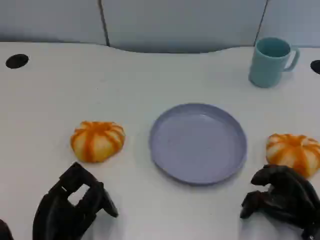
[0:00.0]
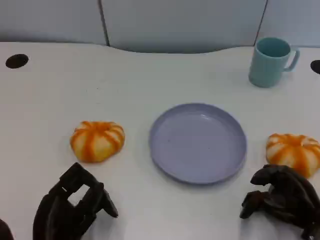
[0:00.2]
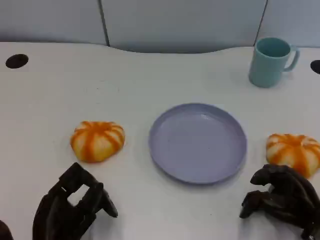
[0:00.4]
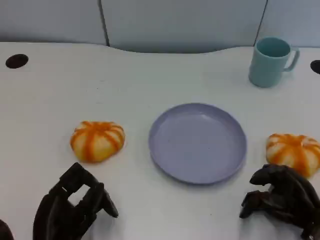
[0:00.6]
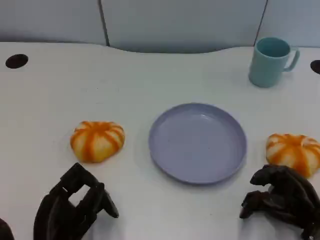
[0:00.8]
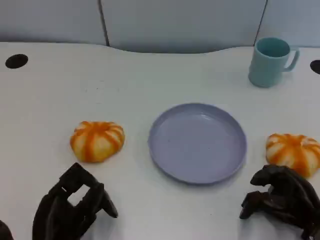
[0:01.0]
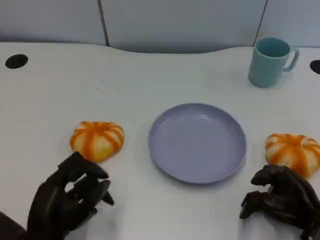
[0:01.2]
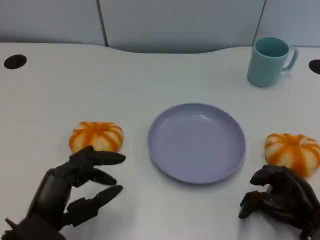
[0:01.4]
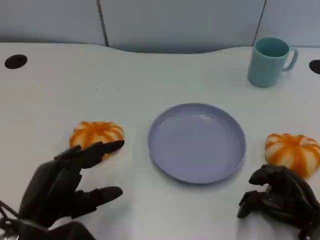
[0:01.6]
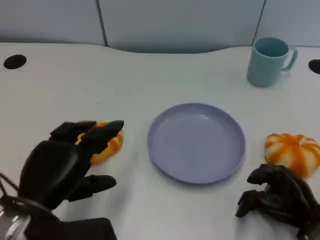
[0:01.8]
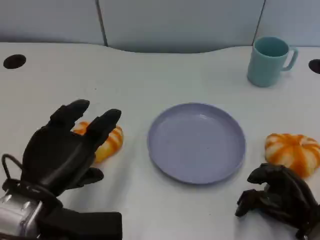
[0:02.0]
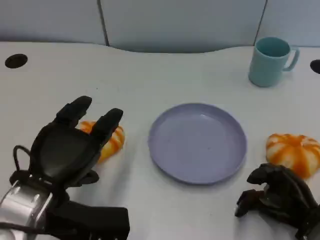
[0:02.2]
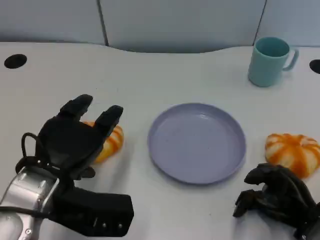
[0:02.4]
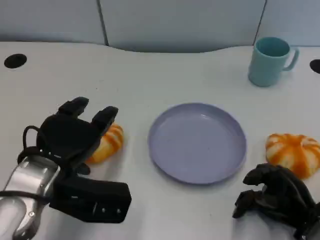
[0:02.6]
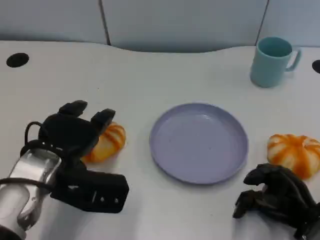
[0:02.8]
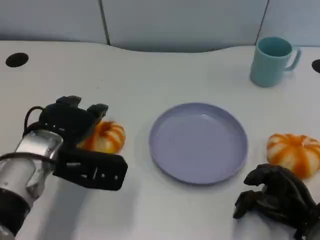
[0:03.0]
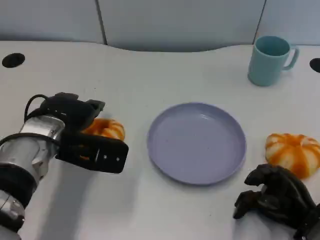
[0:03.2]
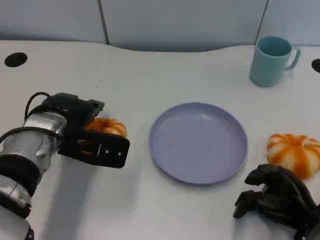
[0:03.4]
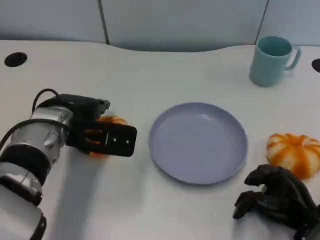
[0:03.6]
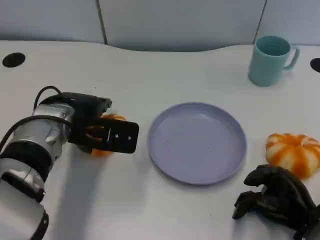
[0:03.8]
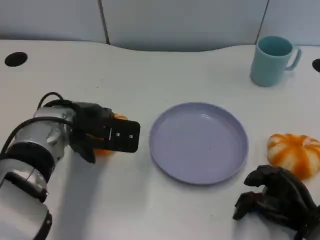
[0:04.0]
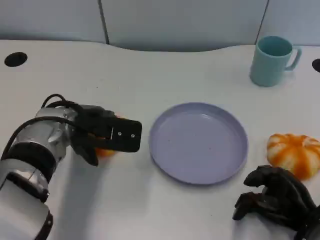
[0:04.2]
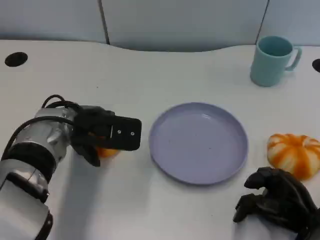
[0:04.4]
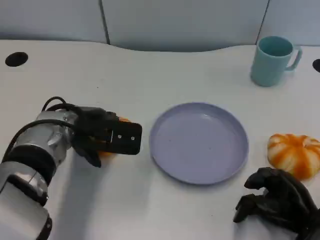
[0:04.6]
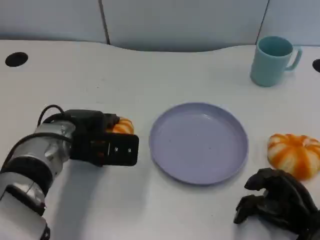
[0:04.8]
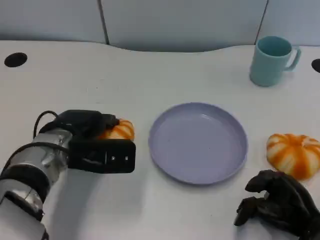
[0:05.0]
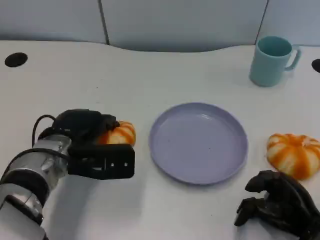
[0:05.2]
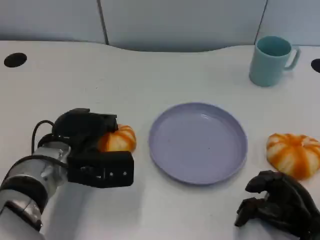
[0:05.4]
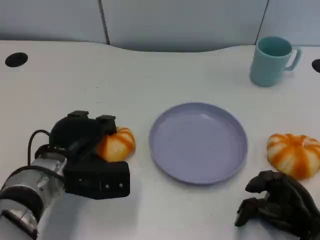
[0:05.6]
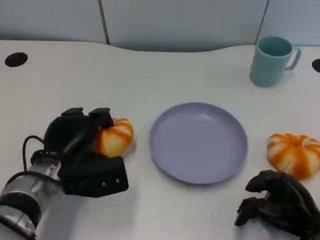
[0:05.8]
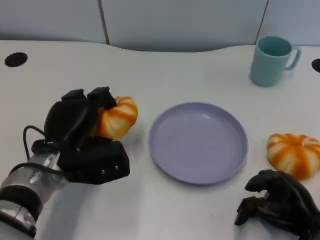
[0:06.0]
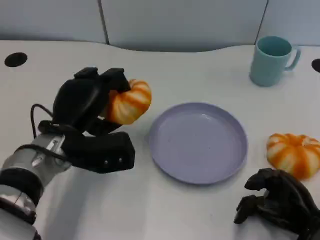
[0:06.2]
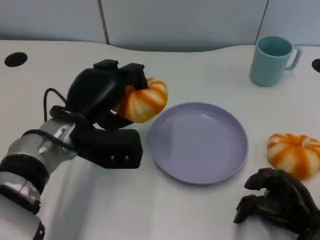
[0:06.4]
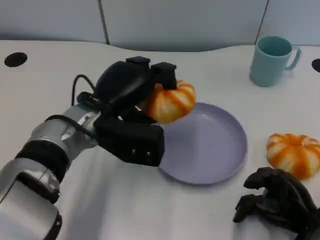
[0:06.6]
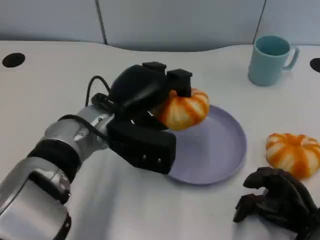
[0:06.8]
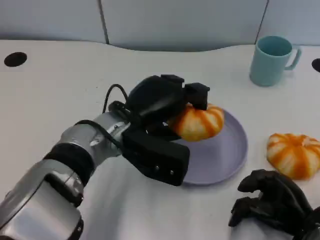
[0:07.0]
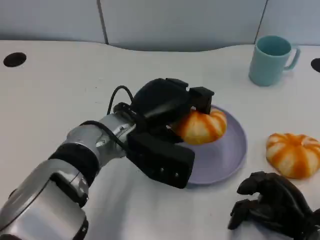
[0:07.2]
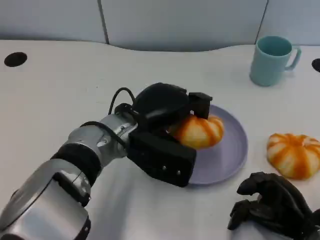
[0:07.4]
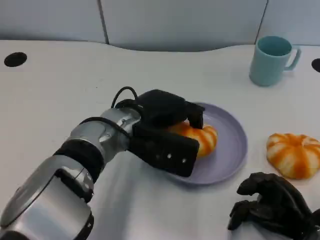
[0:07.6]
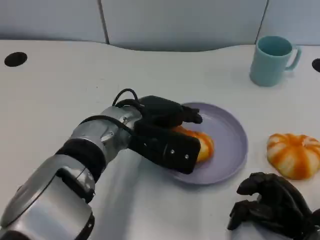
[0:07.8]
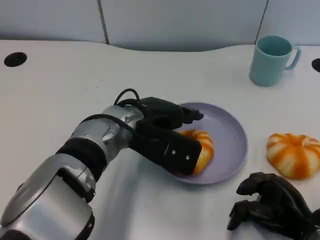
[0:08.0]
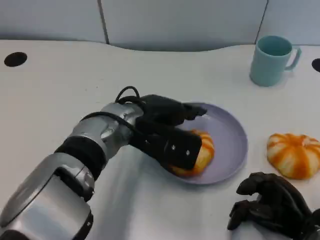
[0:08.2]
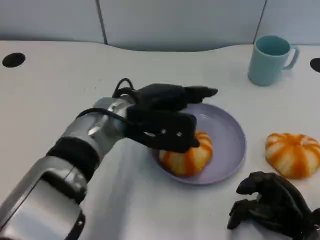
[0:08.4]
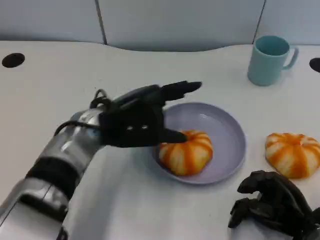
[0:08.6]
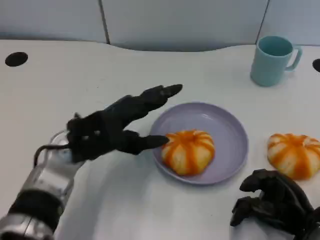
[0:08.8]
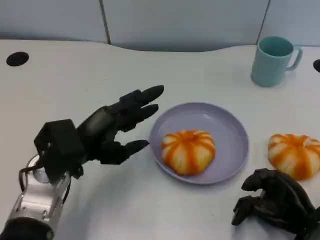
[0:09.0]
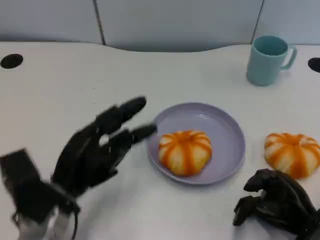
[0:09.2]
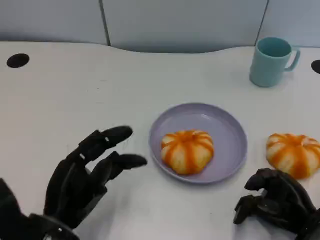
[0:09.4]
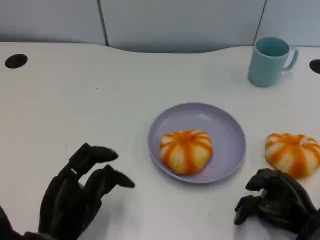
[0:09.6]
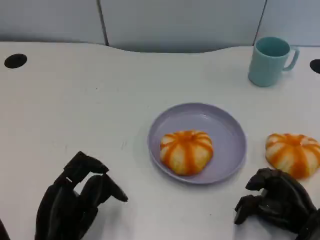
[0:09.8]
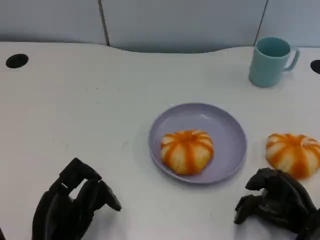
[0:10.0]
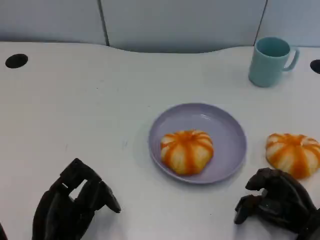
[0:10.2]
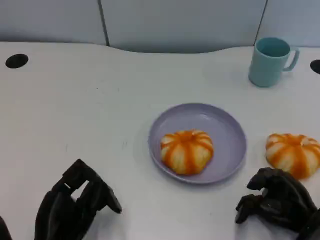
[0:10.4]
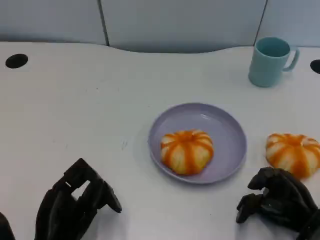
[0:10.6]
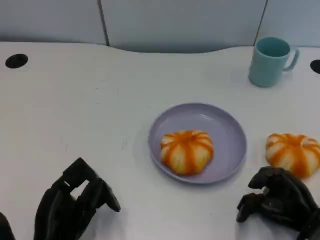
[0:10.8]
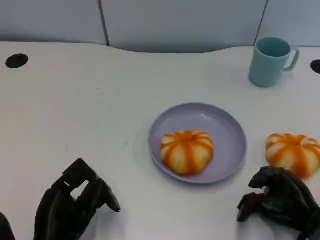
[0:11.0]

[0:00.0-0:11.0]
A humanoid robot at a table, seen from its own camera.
Task of the whole recording: Grasp the bread from the table and place it into the plate.
0:00.0 to 0:01.6: The left hand goes approximately 5 cm upward.
0:01.6 to 0:03.2: The left hand travels forward by roughly 15 cm.
0:06.2 to 0:07.8: The left hand shifts approximately 10 cm to the right.
0:07.8 to 0:09.4: The left hand moves backward, to the left and downward, roughly 20 cm.
0:09.4 to 0:11.0: The hands make only small movements.

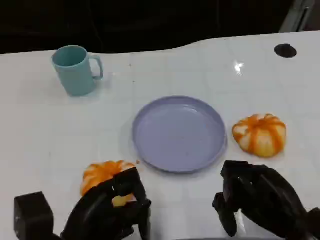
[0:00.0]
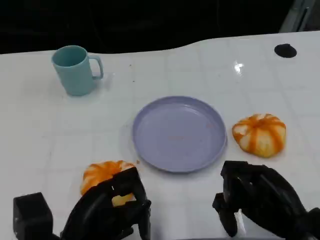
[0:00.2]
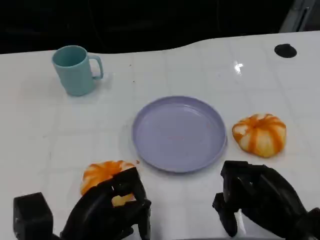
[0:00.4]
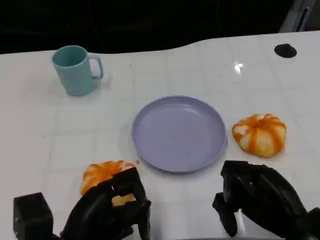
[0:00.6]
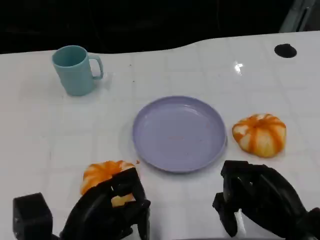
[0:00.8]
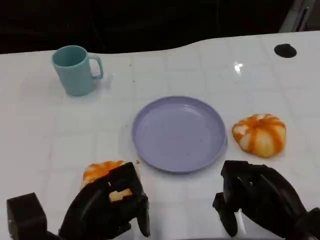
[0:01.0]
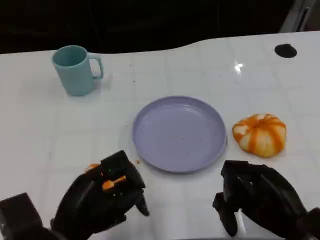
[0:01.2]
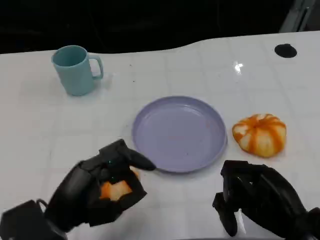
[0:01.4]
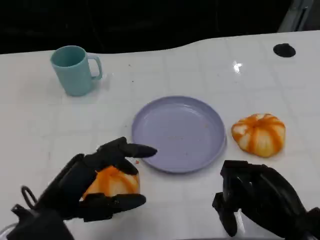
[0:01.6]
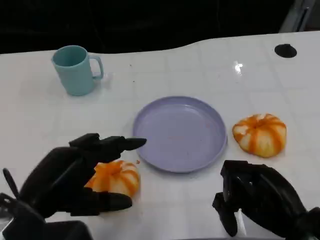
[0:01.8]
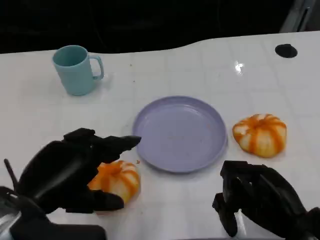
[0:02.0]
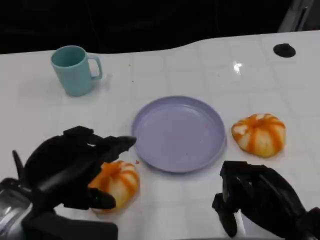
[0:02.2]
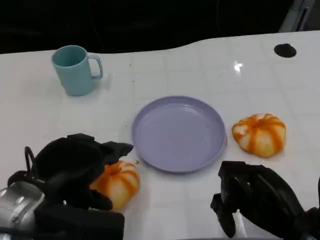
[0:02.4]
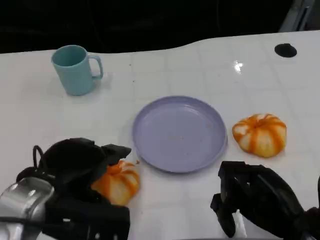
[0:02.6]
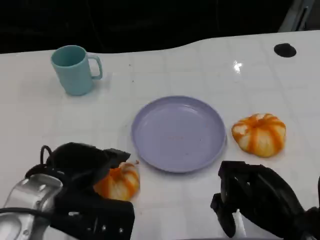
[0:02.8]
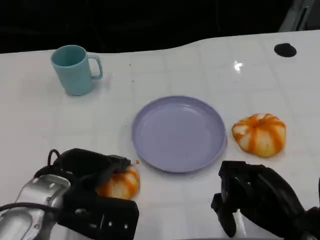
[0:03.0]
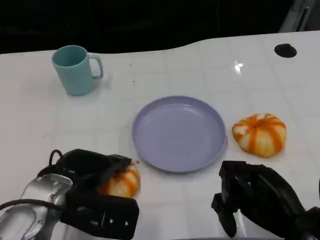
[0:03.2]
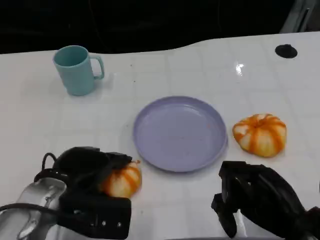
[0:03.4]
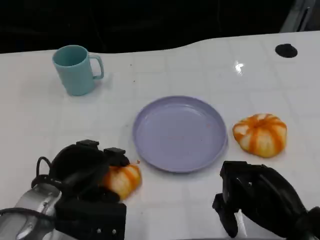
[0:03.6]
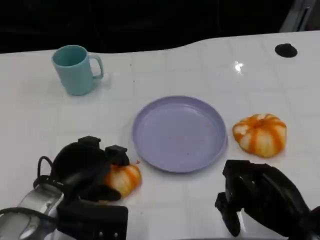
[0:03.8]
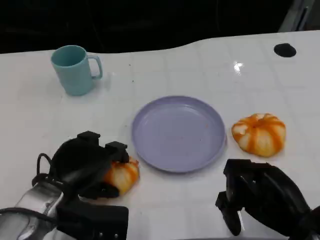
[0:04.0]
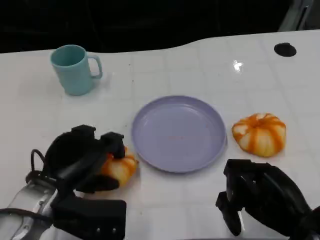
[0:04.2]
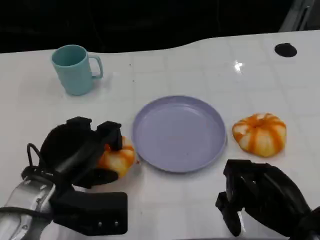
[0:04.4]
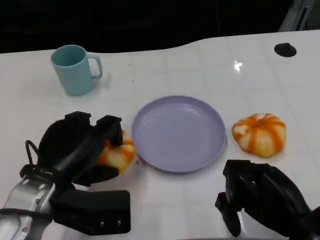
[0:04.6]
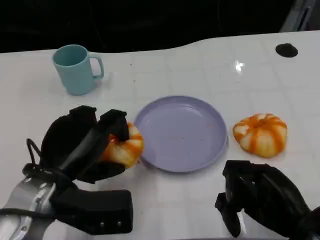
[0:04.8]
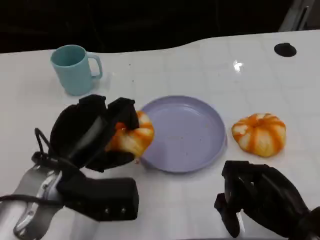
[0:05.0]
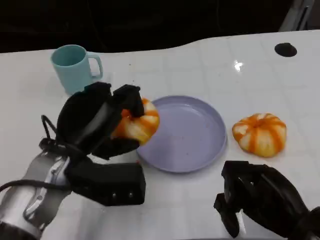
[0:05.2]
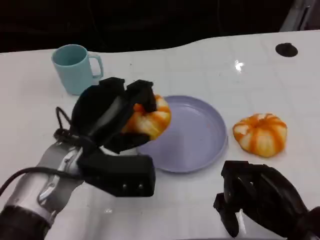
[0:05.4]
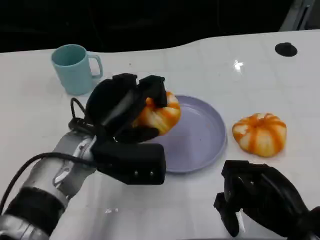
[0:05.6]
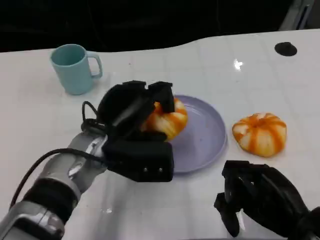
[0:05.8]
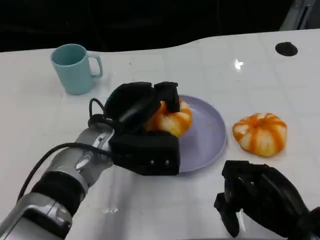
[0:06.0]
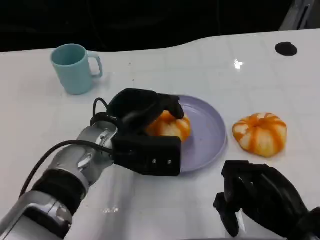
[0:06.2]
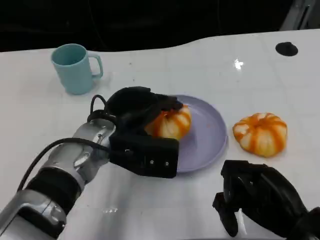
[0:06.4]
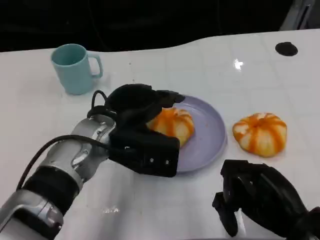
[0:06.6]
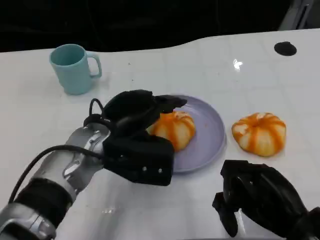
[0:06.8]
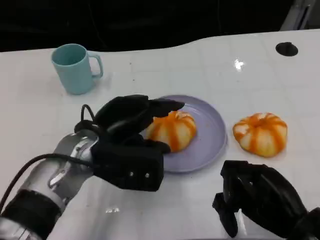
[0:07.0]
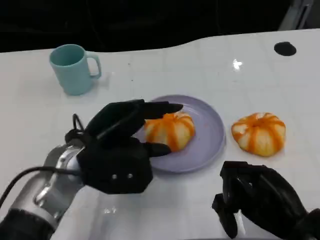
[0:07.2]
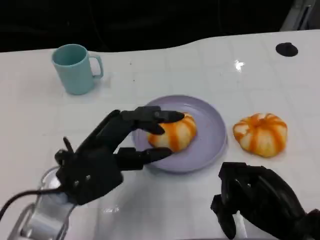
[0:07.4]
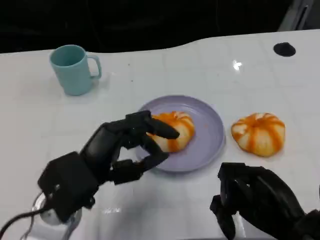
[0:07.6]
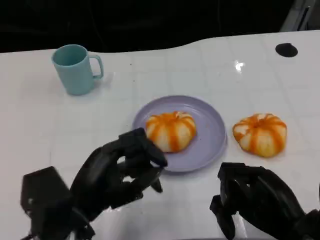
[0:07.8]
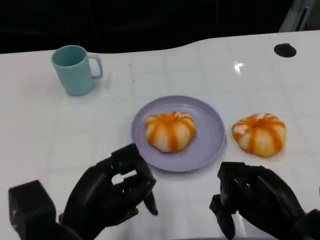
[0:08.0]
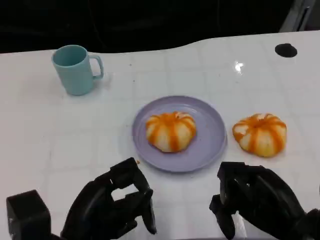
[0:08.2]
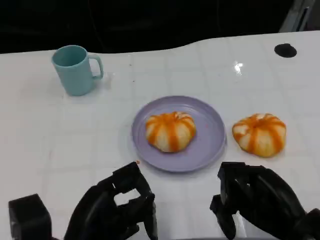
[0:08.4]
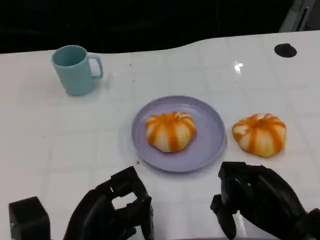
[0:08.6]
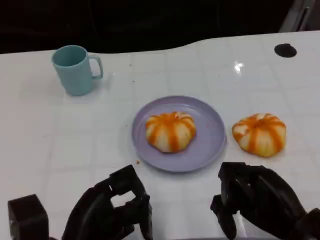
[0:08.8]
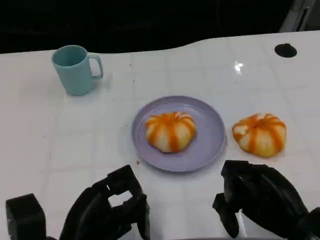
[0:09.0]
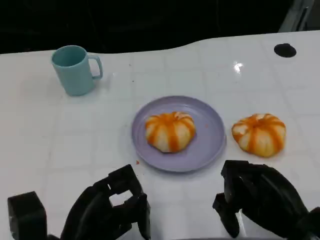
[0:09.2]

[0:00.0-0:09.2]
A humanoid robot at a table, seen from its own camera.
Task of the whole recording: Grasp the bread from the table and place it into the plate.
0:00.0 to 0:01.6: The left hand goes approximately 5 cm upward.
0:01.6 to 0:03.0: The left hand goes approximately 5 cm forward.
0:04.6 to 0:06.2: The left hand heads to the right and forward, covering approximately 10 cm.
0:06.2 to 0:07.6: The left hand travels backward and to the left by approximately 10 cm.
0:07.6 to 0:09.2: The left hand is displaced downward by roughly 5 cm.

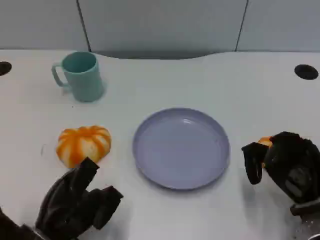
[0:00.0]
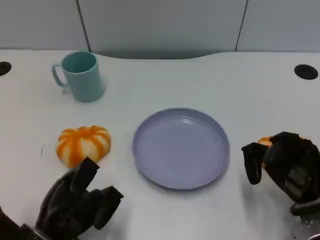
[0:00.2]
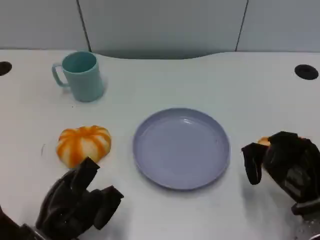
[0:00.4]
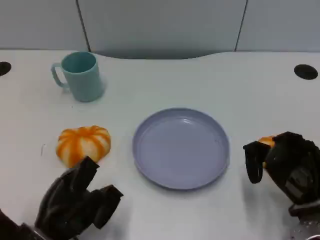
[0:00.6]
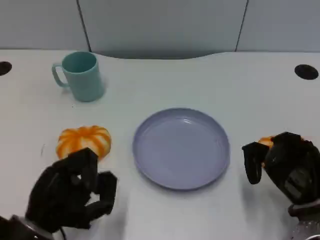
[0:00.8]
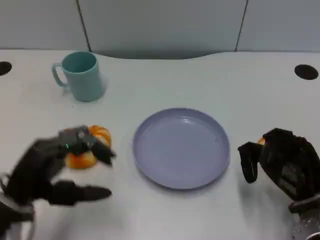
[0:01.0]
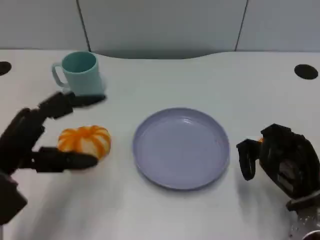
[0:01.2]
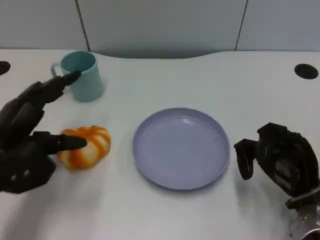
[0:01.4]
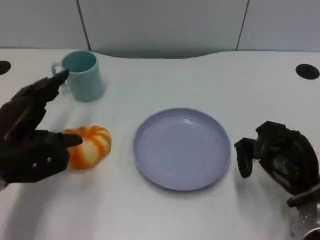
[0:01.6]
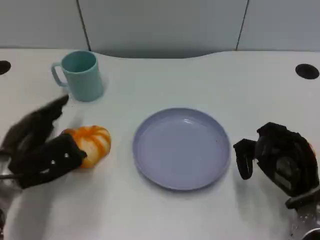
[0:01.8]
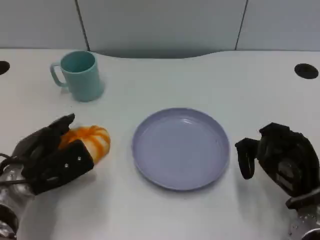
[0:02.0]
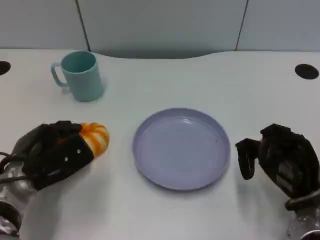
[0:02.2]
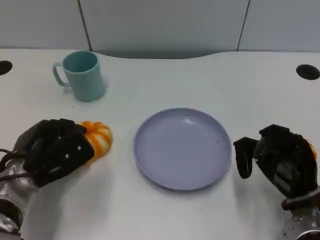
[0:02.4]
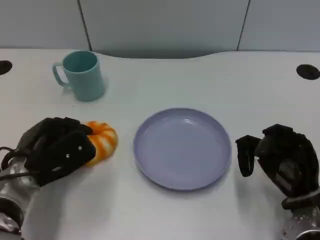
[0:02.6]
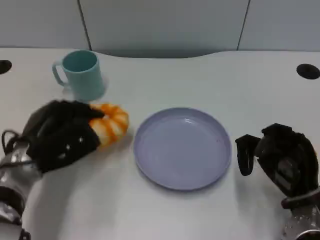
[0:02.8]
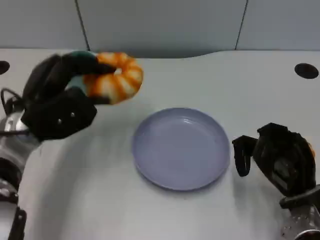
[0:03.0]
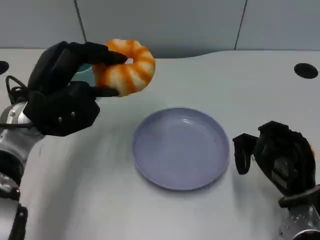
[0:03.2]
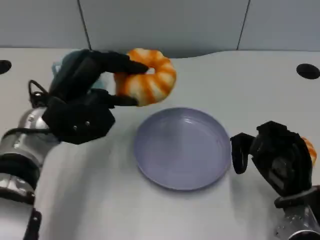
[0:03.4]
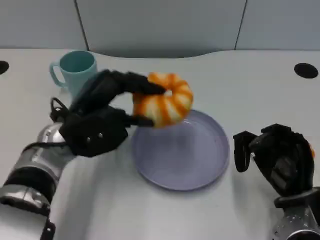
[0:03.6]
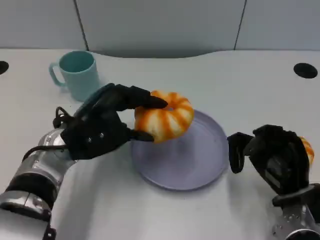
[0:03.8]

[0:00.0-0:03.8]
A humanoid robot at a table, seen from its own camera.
Task of the whole recording: Grasp the bread from the table and place it into the plate.
0:00.0 to 0:01.2: The left hand travels upward and forward by roughly 10 cm.
0:01.2 to 0:02.6: The left hand shifts about 5 cm downward.
0:02.6 to 0:03.8: The left hand heads to the right, covering about 5 cm.
